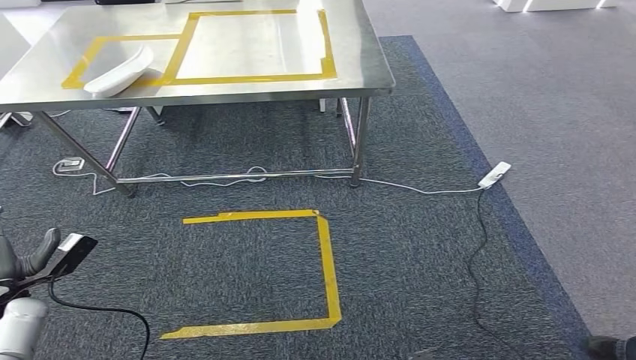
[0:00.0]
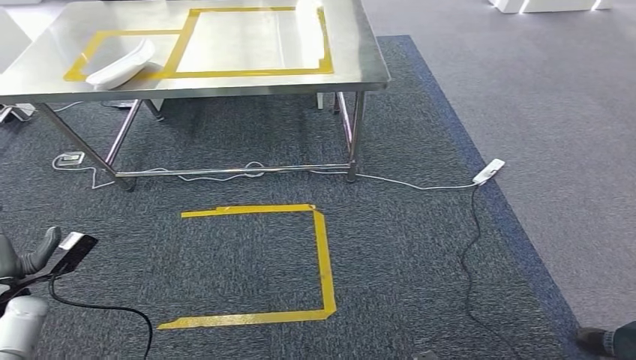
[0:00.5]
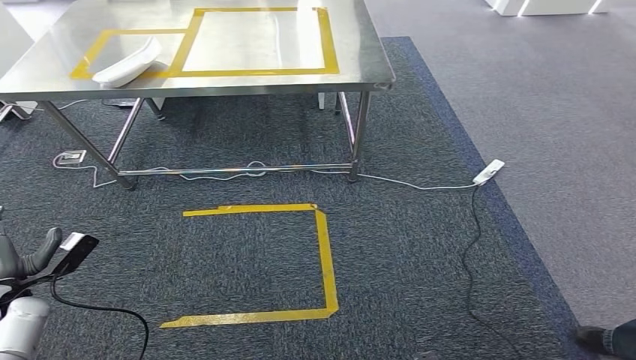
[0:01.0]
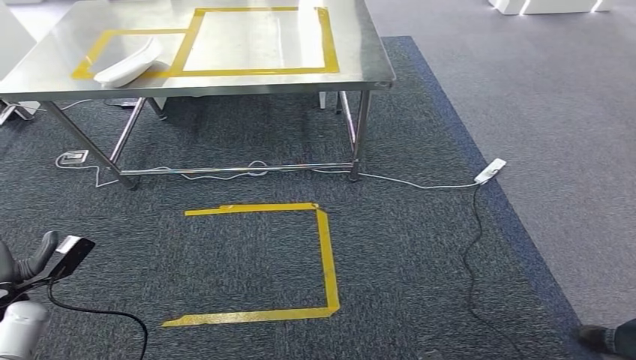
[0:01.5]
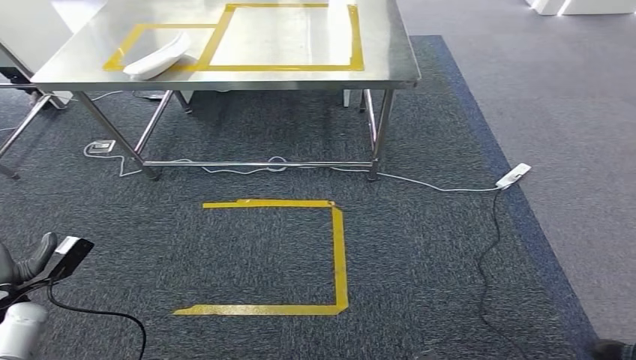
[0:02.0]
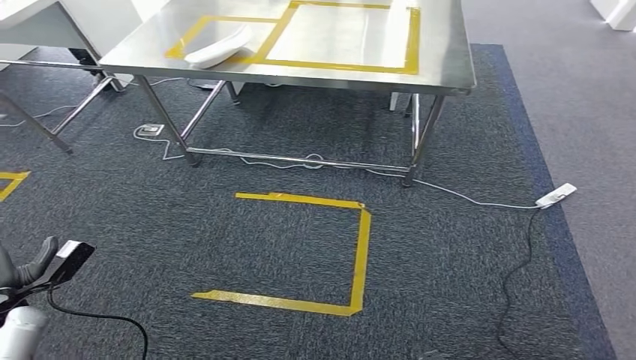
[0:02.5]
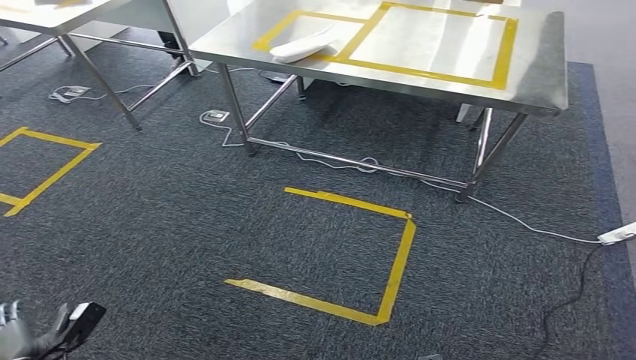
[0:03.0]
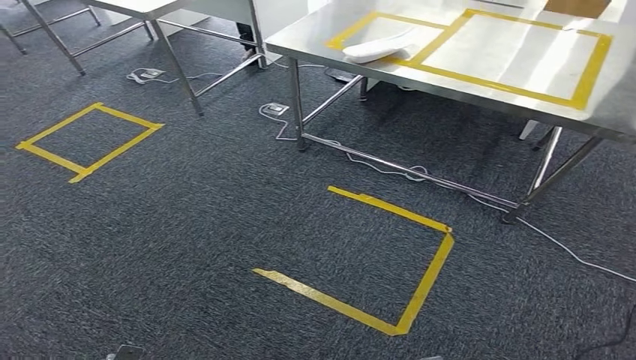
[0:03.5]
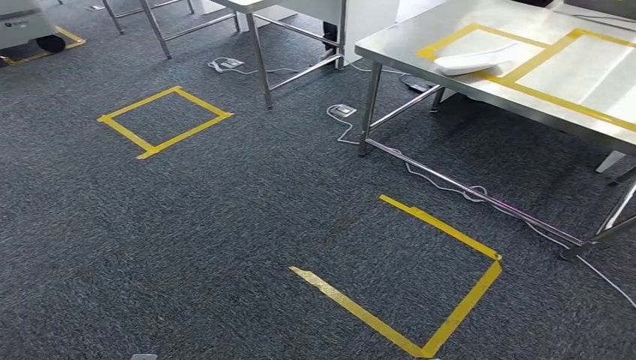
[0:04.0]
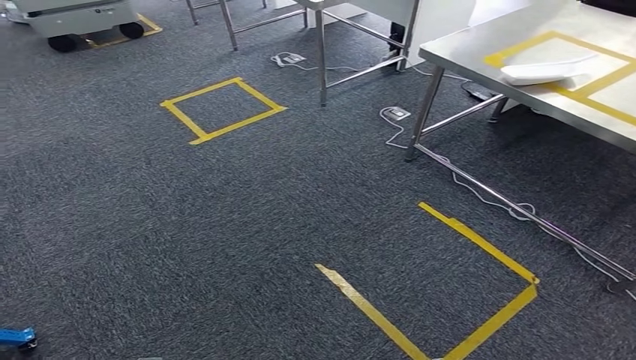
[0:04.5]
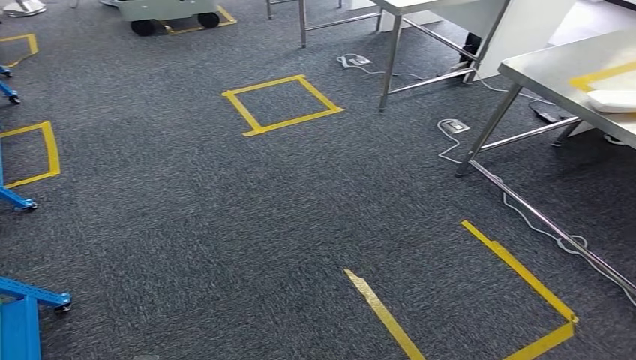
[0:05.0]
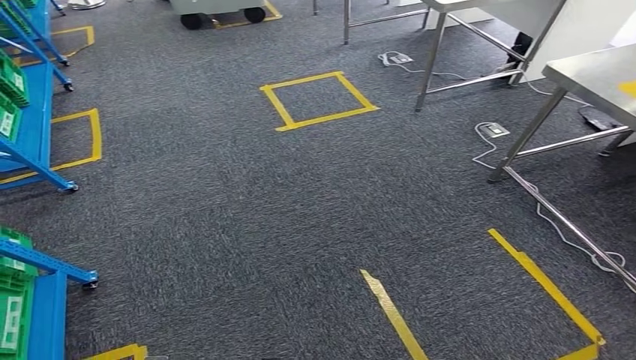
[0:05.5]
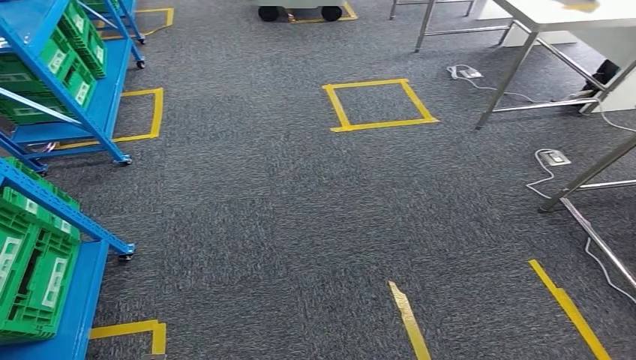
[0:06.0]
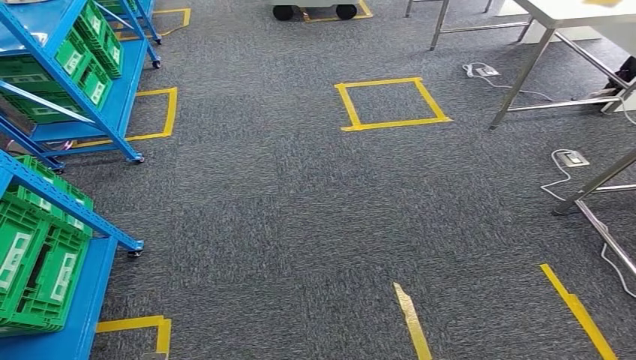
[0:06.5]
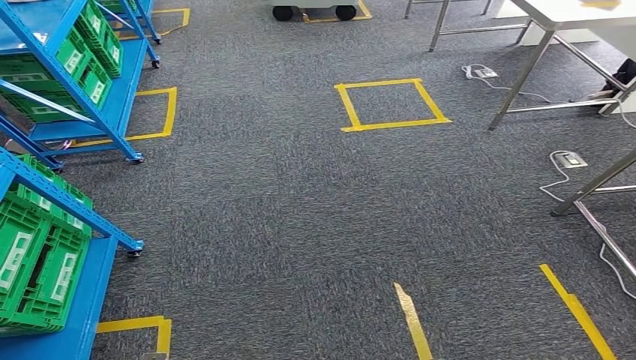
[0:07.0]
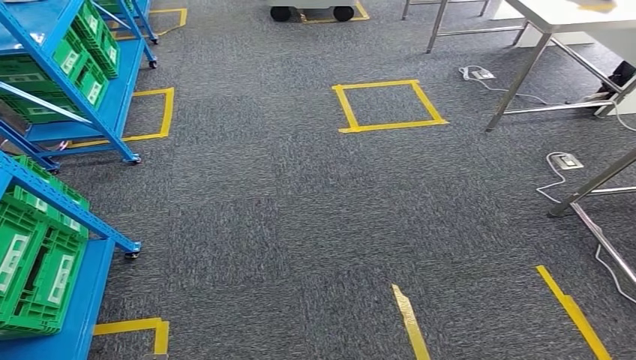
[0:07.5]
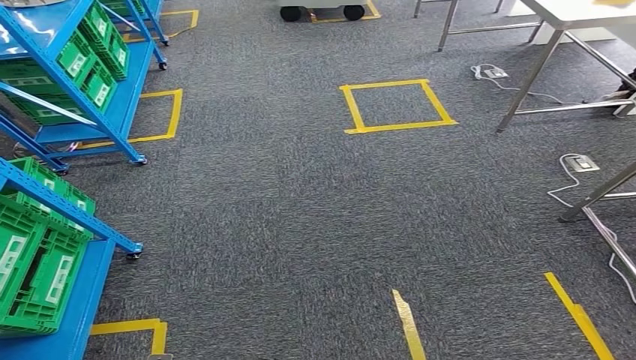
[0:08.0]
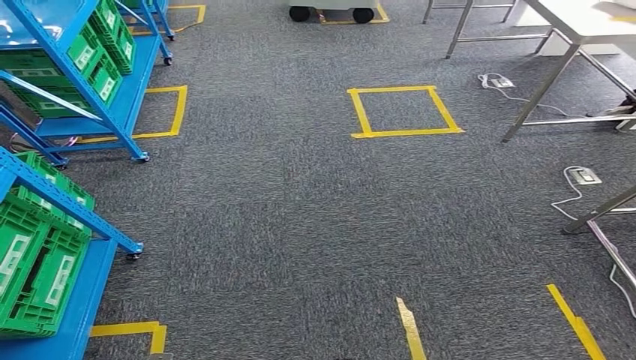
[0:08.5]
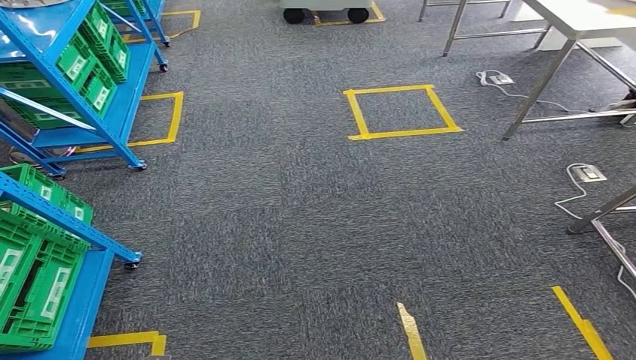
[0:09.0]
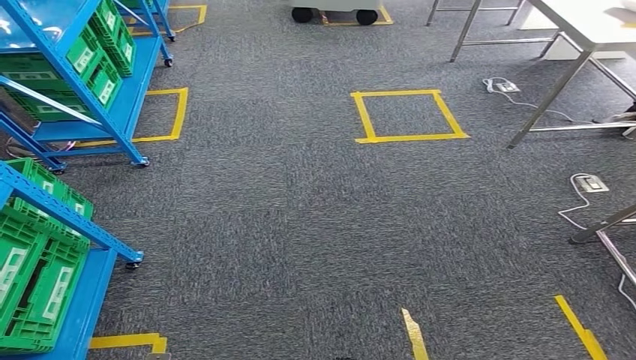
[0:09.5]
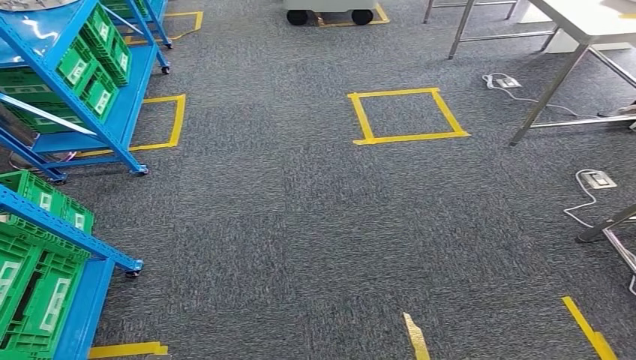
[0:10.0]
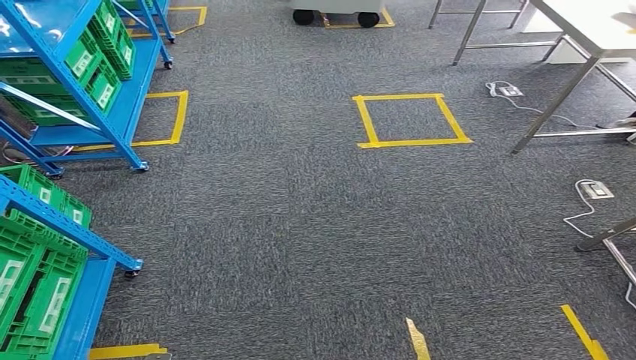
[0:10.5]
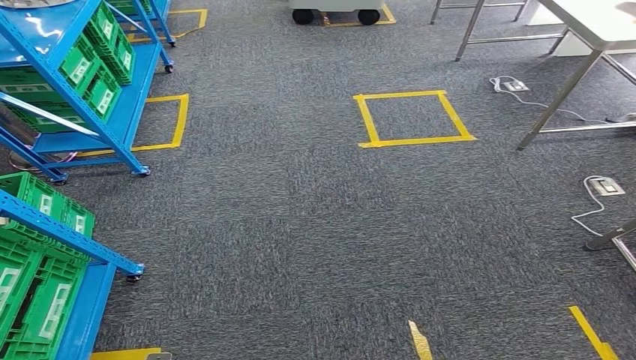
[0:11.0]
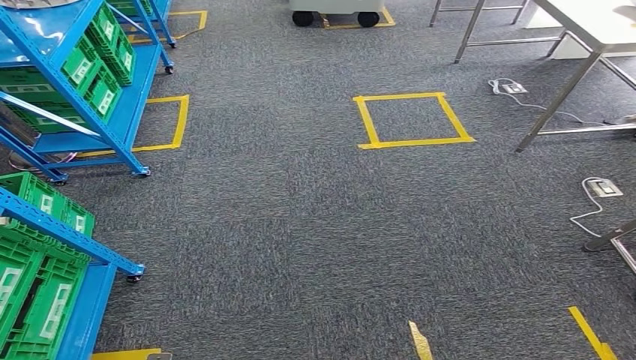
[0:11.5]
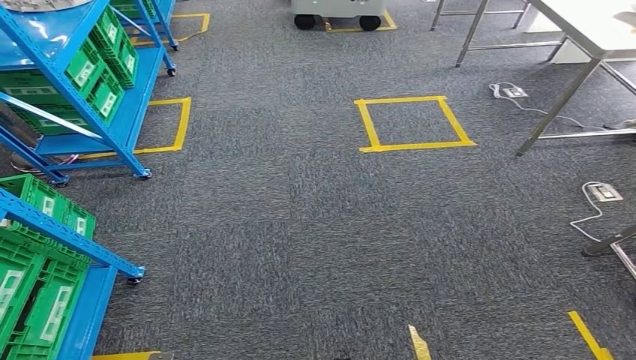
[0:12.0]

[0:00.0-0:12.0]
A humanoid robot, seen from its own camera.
0:10.0 to 0:12.0: Both hands stay about where they are.

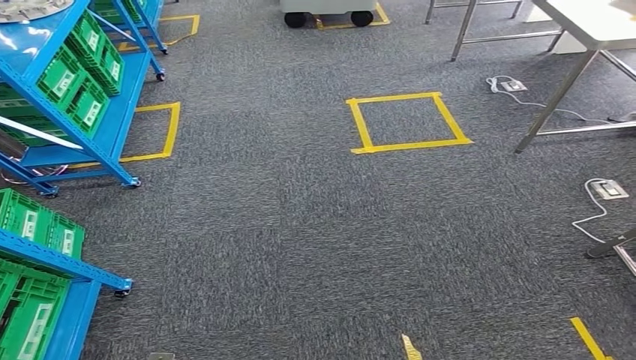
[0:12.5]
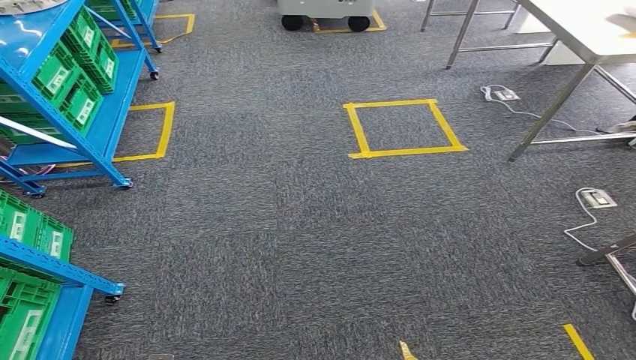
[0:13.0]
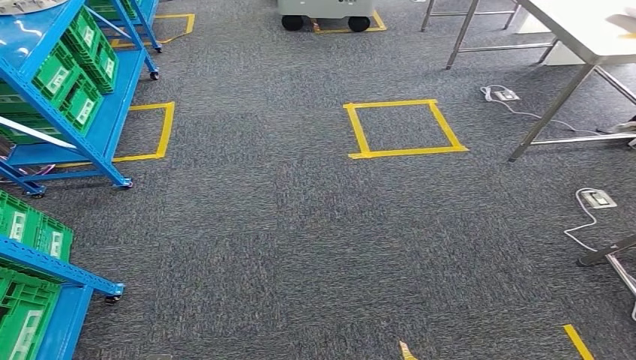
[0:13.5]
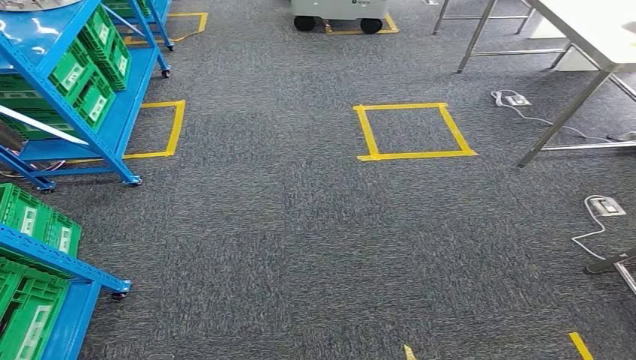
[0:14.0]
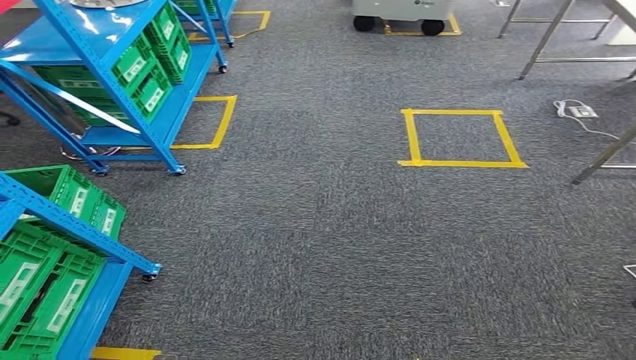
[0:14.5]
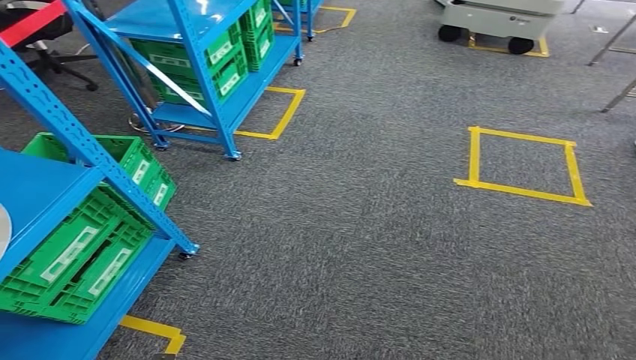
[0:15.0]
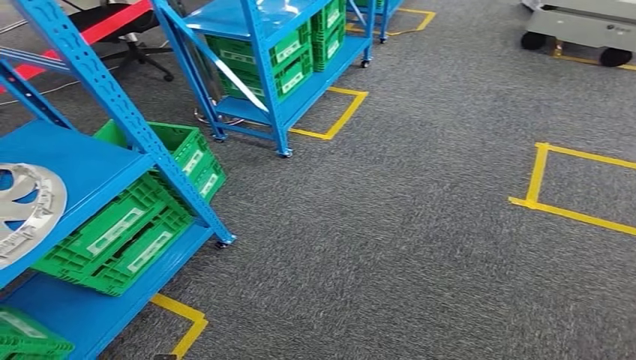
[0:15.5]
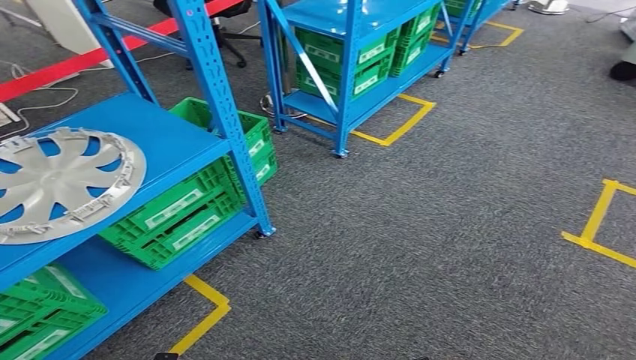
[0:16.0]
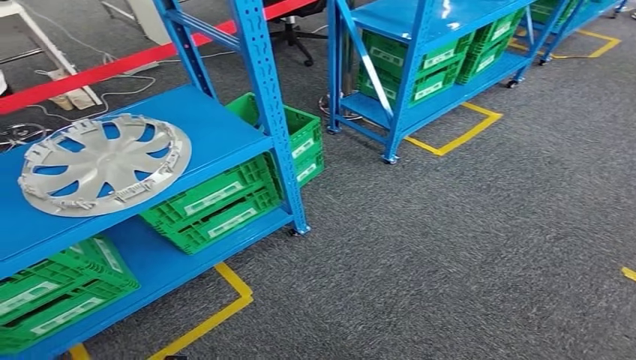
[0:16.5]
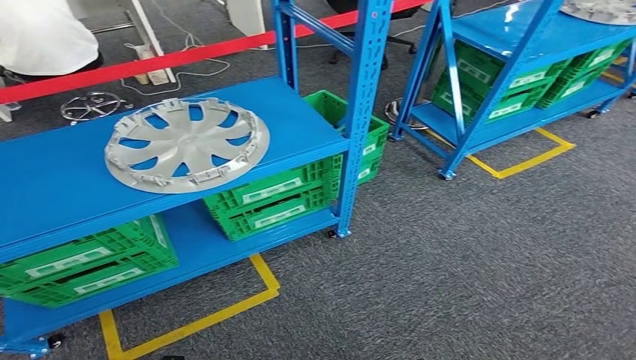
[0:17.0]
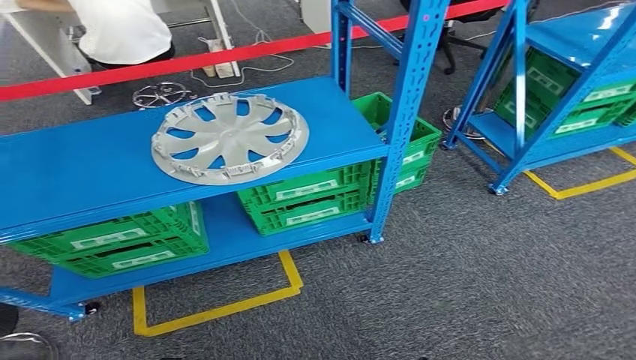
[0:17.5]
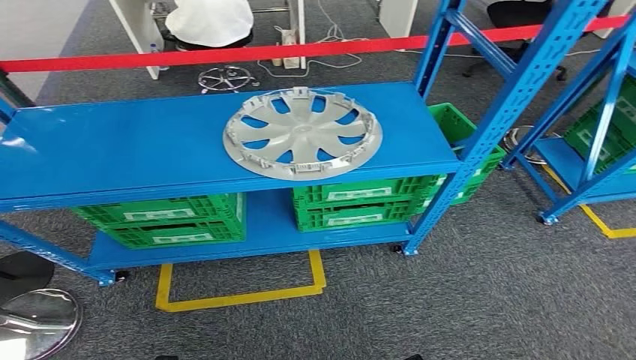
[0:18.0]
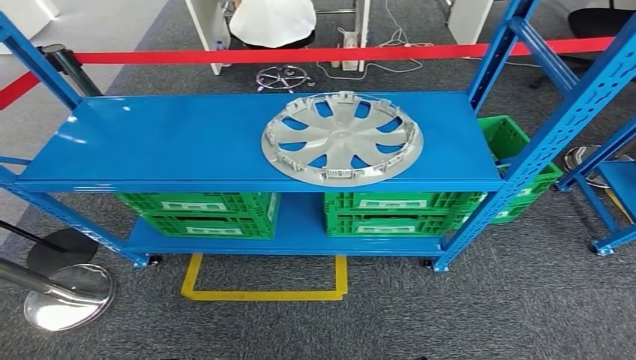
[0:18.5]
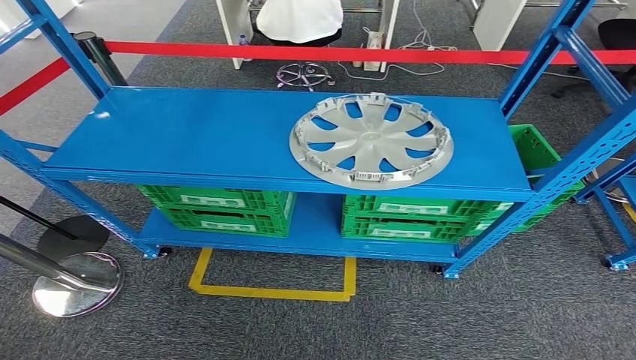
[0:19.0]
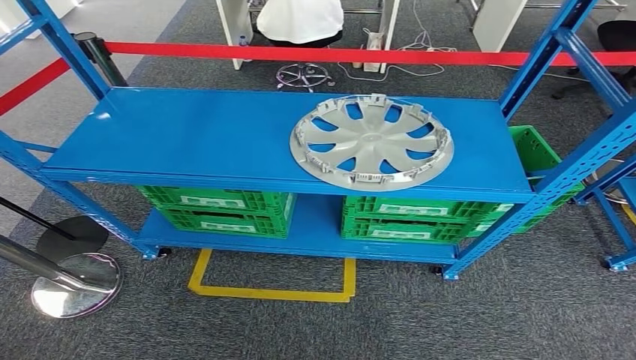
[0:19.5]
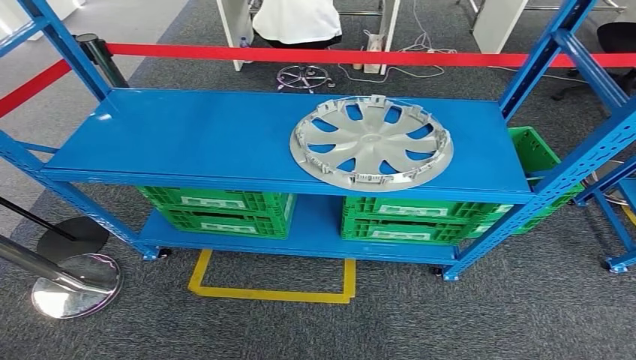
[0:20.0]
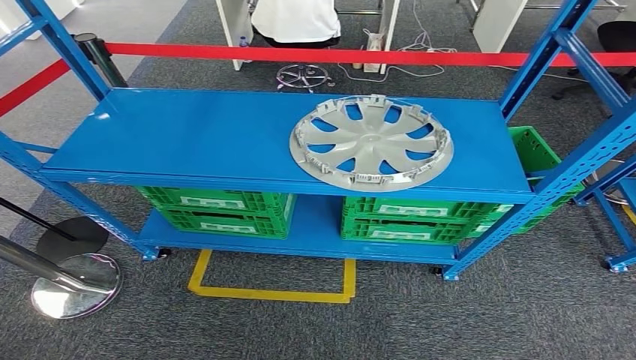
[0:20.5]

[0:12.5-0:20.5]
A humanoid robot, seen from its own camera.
Step, 0:12.5 to 0:20.5: Return to the initial position at the workbench.
